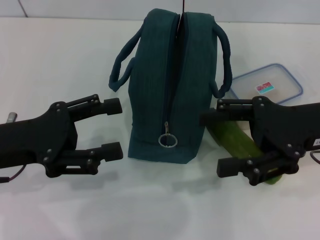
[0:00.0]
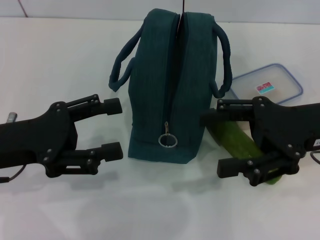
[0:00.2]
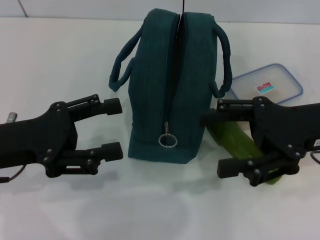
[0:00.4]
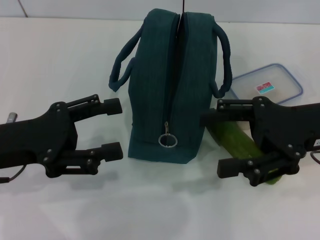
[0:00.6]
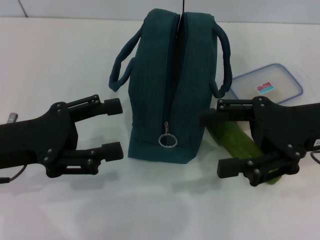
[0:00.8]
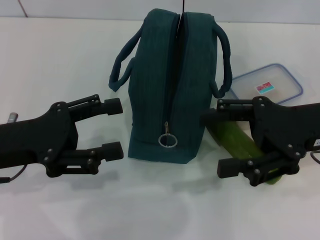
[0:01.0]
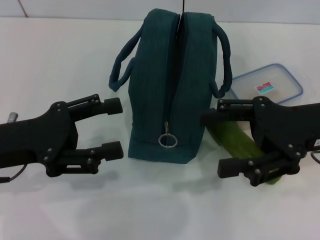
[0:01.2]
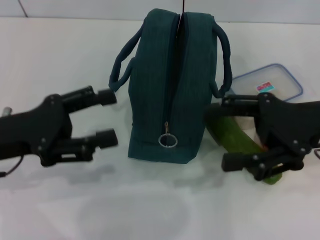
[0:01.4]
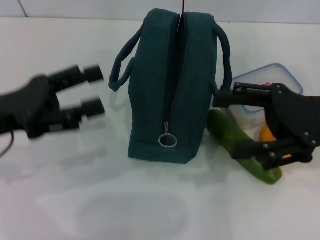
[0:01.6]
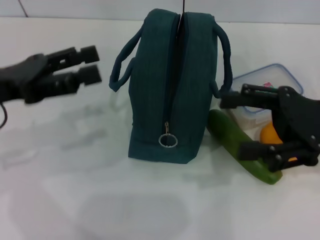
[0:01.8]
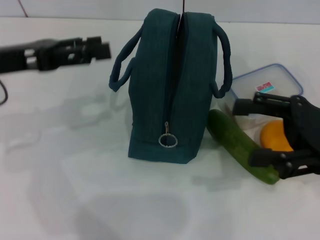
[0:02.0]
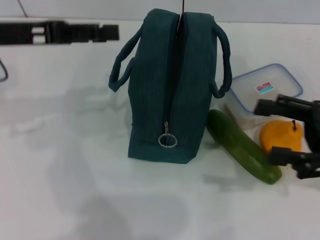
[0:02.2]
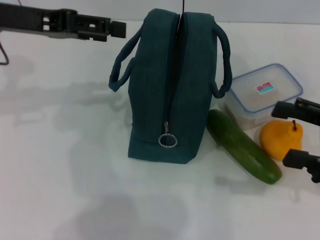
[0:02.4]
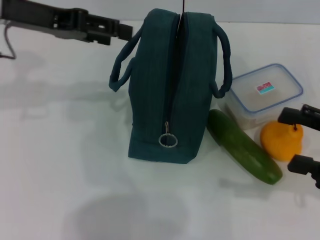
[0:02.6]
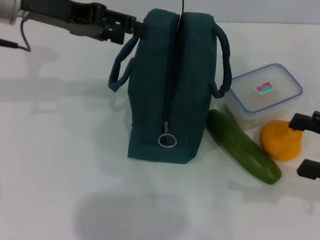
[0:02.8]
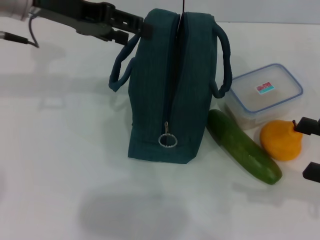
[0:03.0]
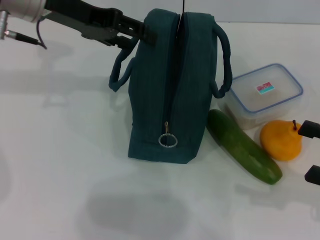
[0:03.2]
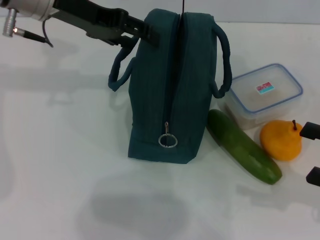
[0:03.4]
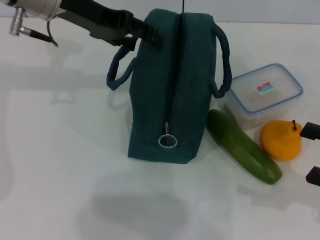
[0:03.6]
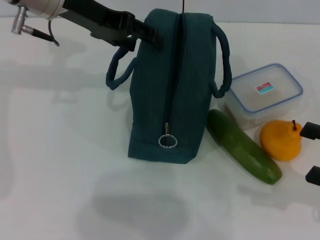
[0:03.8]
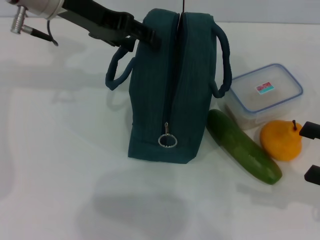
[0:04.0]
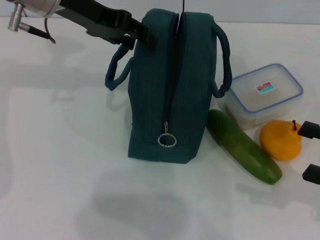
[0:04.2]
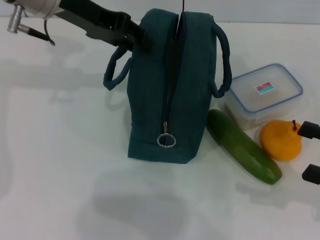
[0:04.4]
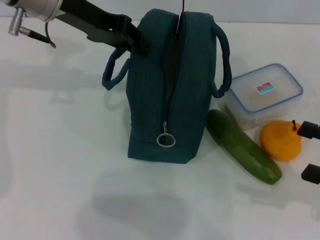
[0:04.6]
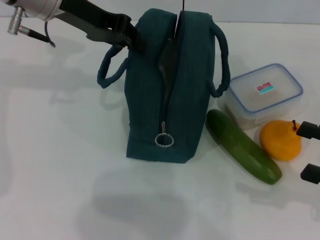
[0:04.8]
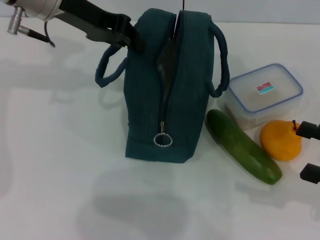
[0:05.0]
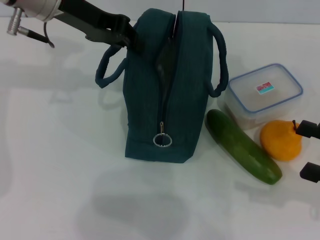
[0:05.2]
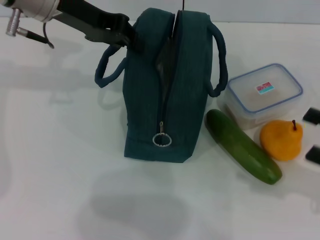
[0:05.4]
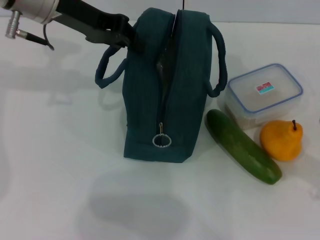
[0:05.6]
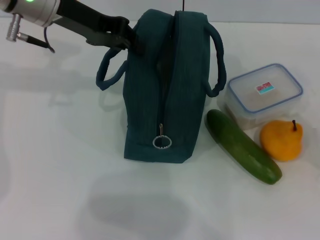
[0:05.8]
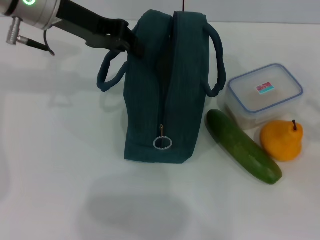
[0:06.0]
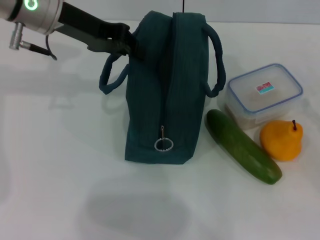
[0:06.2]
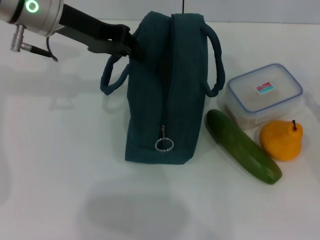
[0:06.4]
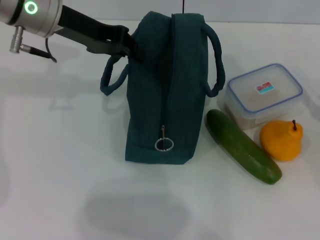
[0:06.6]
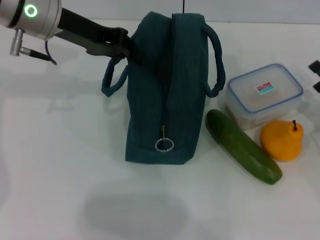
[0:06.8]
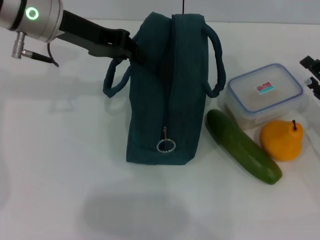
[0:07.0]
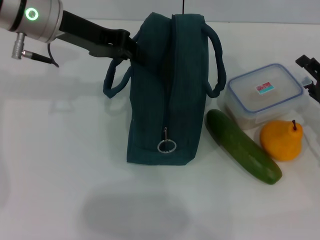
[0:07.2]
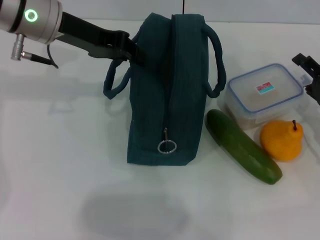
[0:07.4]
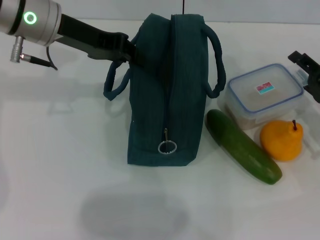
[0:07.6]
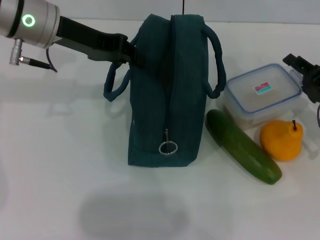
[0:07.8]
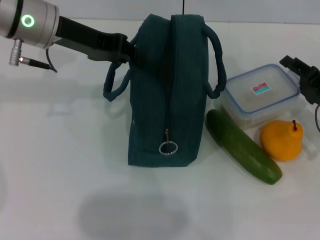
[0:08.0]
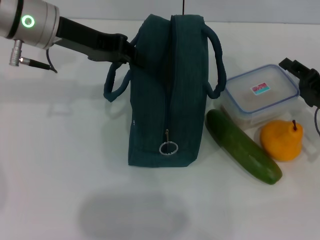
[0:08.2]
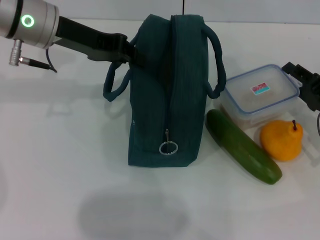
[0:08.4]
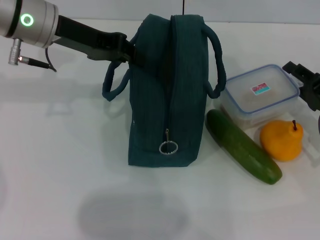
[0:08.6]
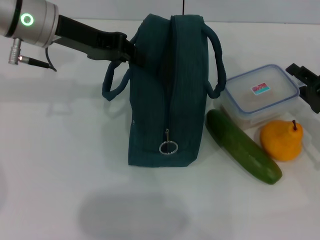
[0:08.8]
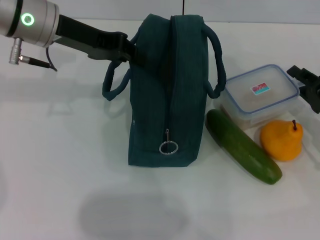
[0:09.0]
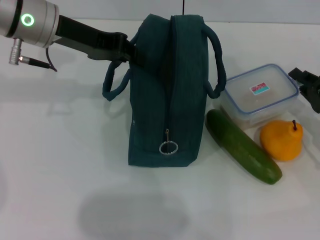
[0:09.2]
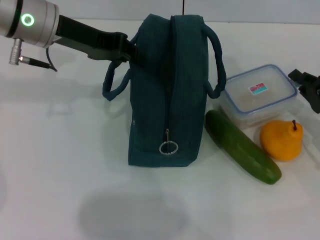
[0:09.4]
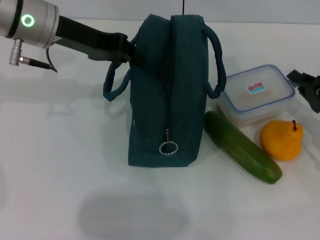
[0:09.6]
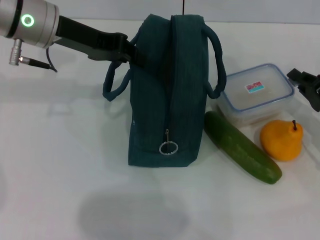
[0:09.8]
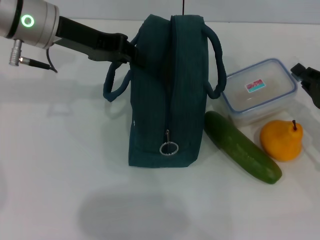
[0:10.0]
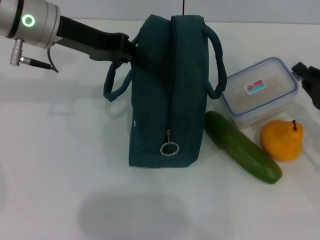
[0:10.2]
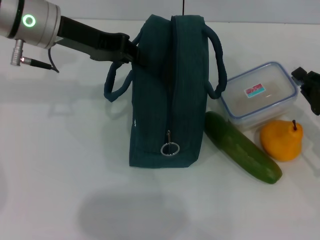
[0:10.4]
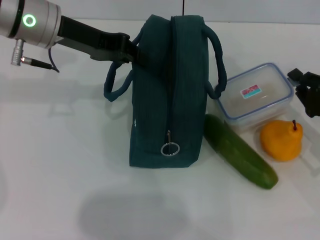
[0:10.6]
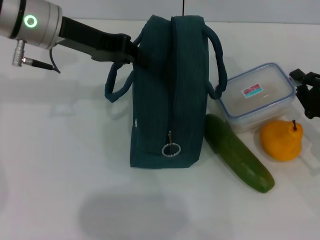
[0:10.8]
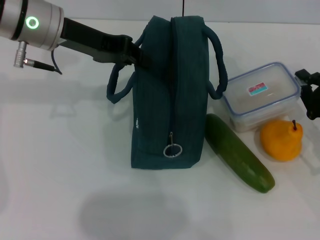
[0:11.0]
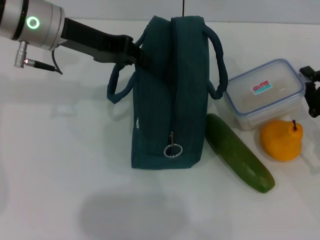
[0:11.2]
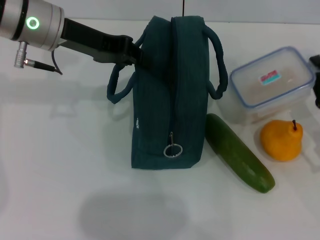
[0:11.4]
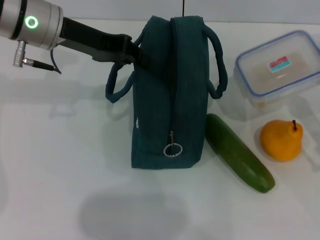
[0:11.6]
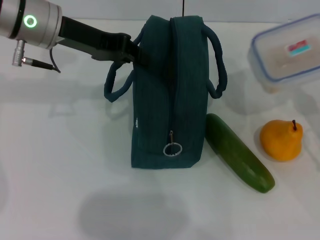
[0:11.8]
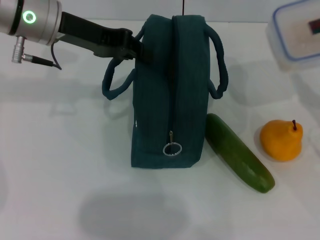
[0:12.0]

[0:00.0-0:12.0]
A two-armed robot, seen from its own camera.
Step, 0:00.0 to 0:04.8: Hold the lunch bag with your left hand.
Step, 0:05.0 to 0:09.4: Pick up the lunch box with your right hand.
0:00.0 to 0:01.6: There are only small adjustments of the grippers.
0:01.6 to 0:03.0: The right gripper heads to the right, backward and downward, covering approximately 15 cm, while the left gripper heads forward, upward and to the right, covering some 20 cm.
0:03.0 to 0:04.4: The left gripper closes its fingers.
0:04.4 to 0:06.0: The left gripper closes.
0:06.0 to 0:07.6: The right gripper shifts about 10 cm forward and to the left.
0:07.6 to 0:09.0: The right gripper closes its fingers.
0:09.0 to 0:10.4: The grippers make only small movements.
0:10.4 to 0:12.0: The right gripper ends up some 5 cm from where it was.

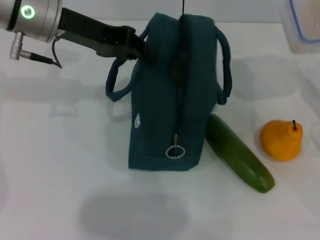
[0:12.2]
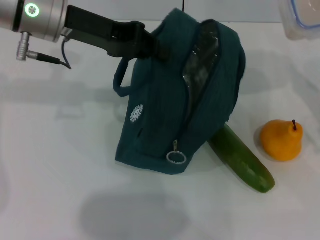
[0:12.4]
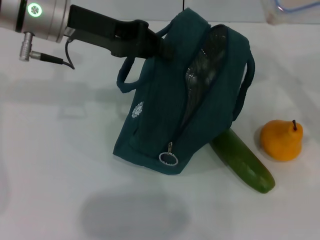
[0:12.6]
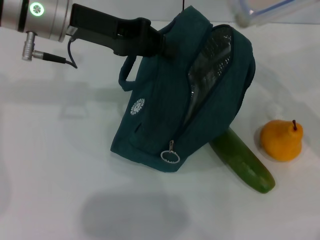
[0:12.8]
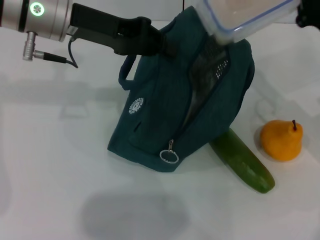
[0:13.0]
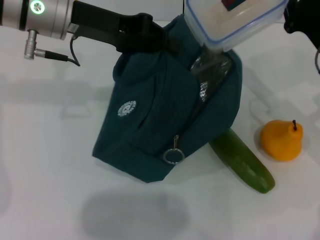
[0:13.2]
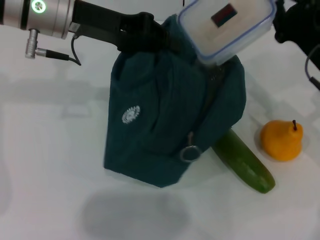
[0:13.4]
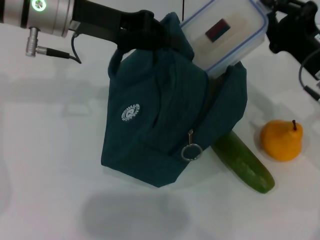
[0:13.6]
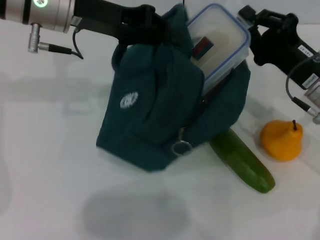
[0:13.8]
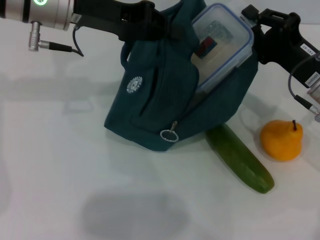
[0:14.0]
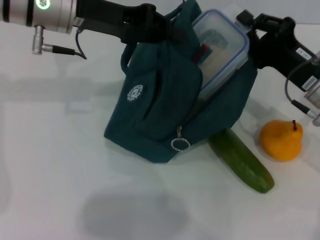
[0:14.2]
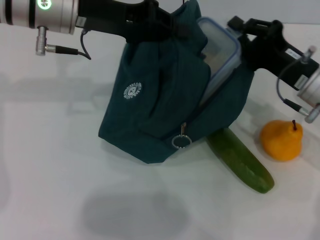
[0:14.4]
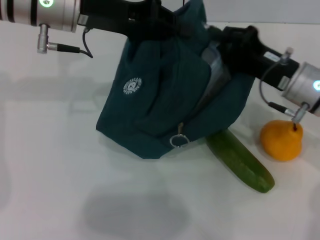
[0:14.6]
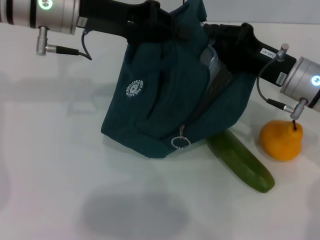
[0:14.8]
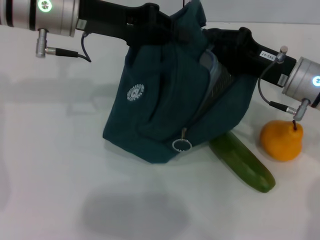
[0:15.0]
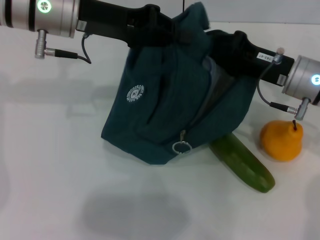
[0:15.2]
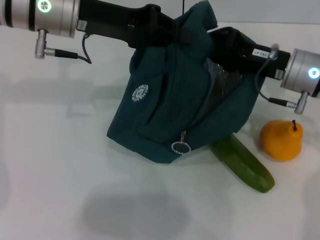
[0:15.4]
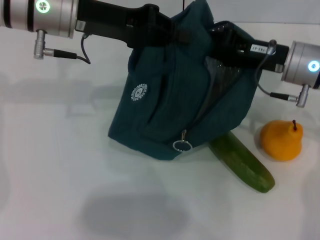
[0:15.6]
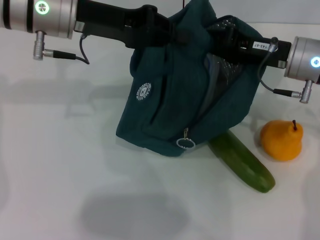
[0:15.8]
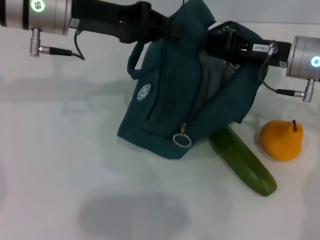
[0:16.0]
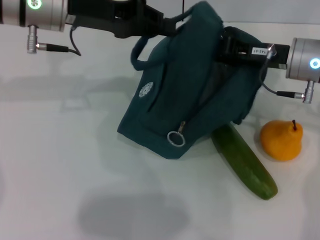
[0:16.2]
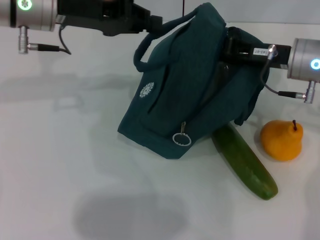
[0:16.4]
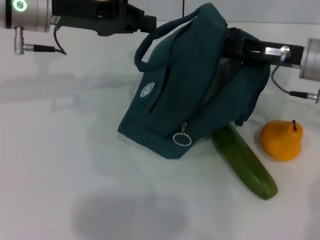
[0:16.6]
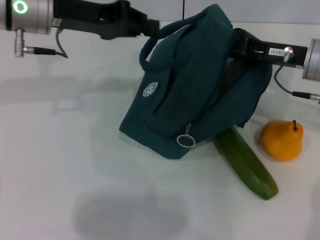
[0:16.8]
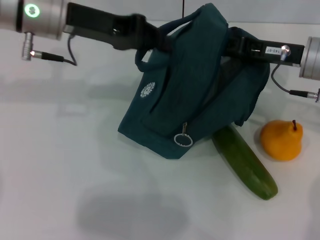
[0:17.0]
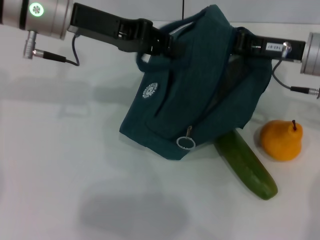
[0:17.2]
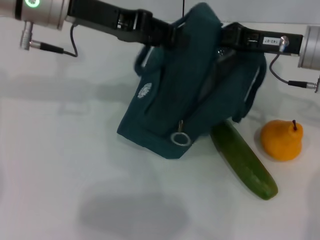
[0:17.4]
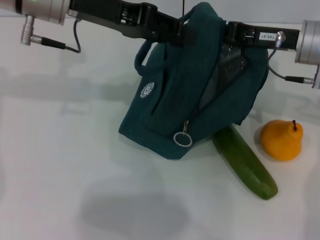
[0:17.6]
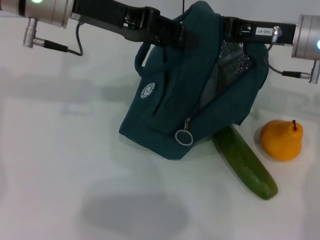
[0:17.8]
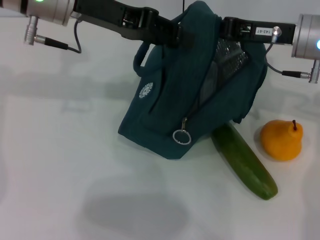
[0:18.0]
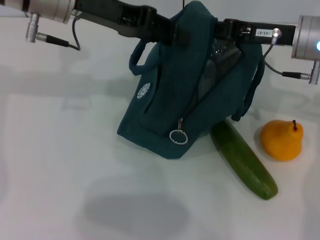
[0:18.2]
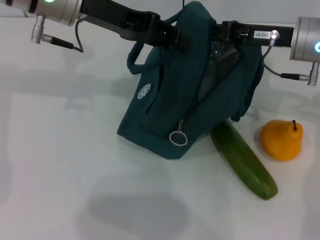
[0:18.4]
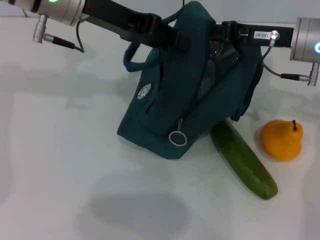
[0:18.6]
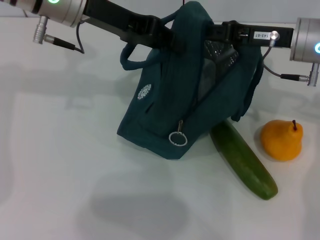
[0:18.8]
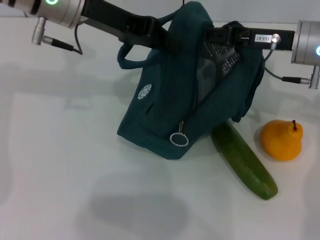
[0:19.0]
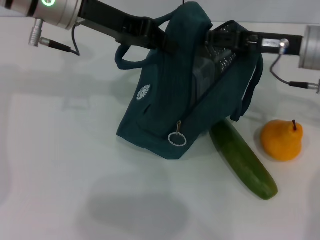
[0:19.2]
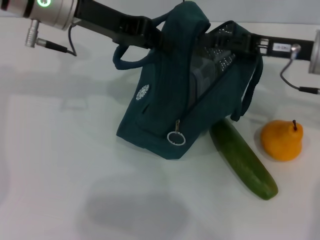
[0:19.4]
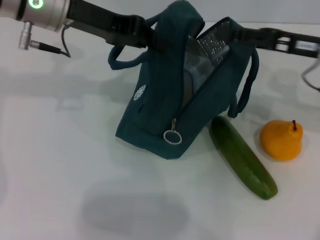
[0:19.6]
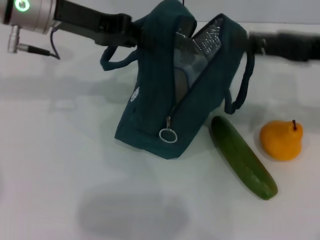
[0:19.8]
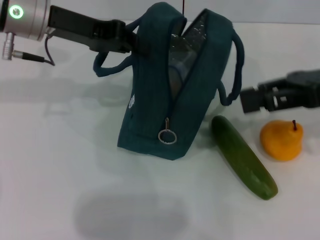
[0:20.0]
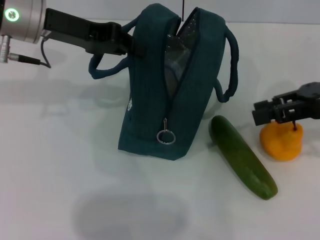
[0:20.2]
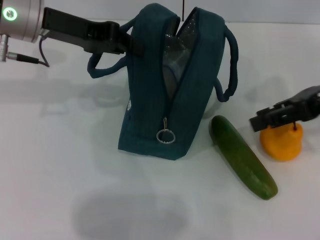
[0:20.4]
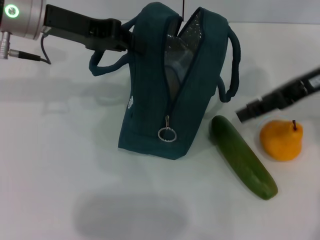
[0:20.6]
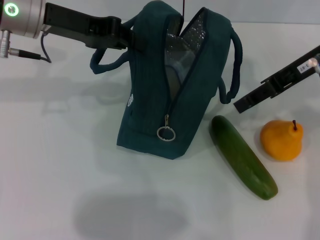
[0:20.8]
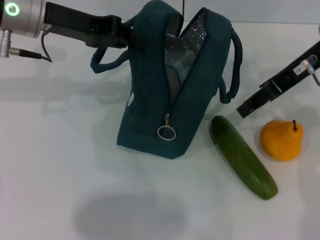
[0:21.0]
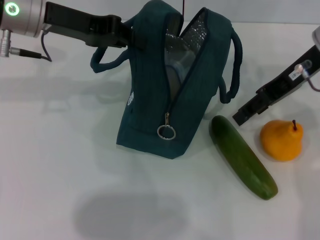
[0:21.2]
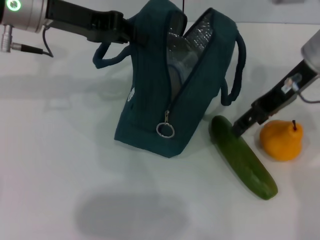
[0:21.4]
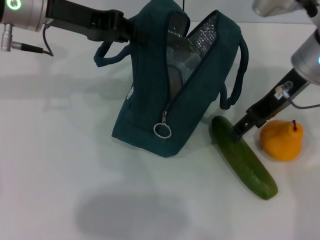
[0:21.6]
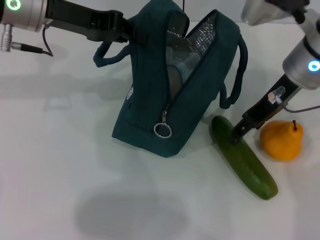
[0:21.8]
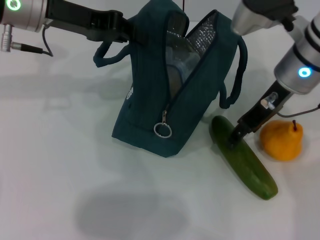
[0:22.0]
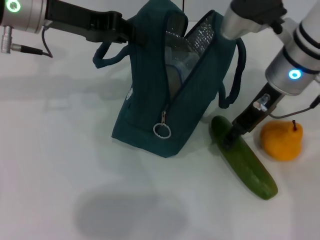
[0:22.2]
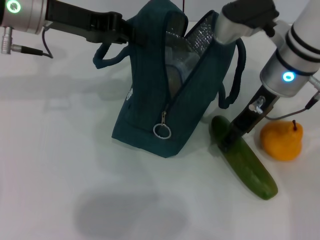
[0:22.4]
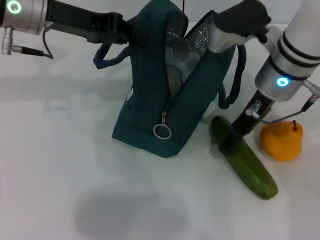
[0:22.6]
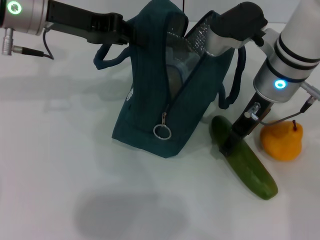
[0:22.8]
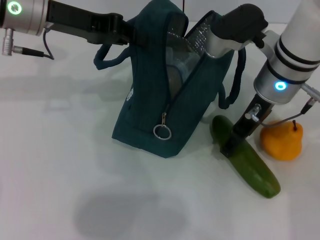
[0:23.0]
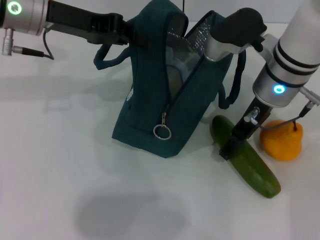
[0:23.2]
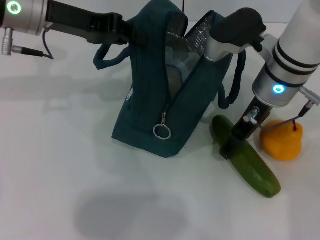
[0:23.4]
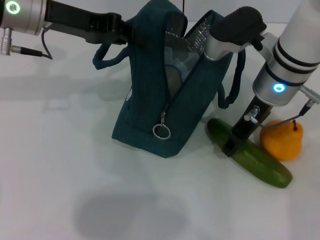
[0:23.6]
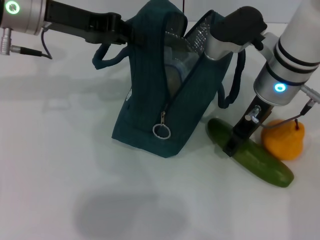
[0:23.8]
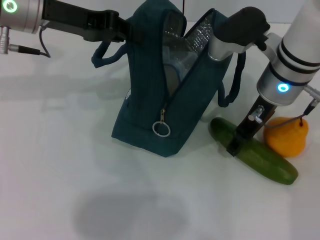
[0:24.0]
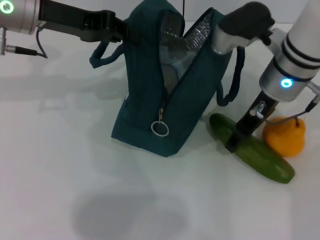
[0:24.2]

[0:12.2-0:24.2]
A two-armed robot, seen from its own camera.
Step, 0:12.2 to 0:18.6: Place the lunch box into the lunch bag with your right hand.
Step, 0:18.8 to 0:23.8: Pick up the cucumber with your right hand.
0:12.2 to 0:13.8: The right gripper goes approximately 10 cm to the left and forward.
0:15.2 to 0:16.6: The right gripper opens its fingers.
0:16.6 to 0:18.2: The left gripper opens.
0:18.2 to 0:19.8: The right gripper shifts some 10 cm to the right and backward, while the left gripper closes its fingers.
0:19.8 to 0:21.2: The right gripper is displaced to the left by about 5 cm.
0:21.2 to 0:22.6: The right gripper goes approximately 10 cm to the left and downward, and opens.
0:22.6 to 0:24.2: The two grippers keep their place.
